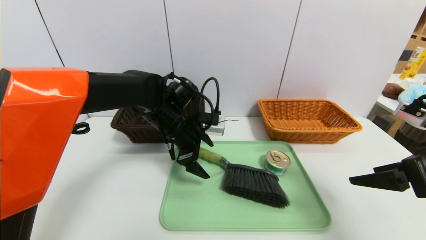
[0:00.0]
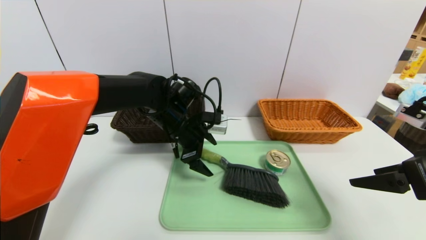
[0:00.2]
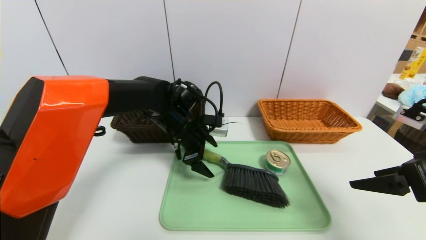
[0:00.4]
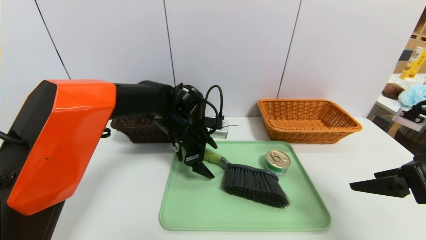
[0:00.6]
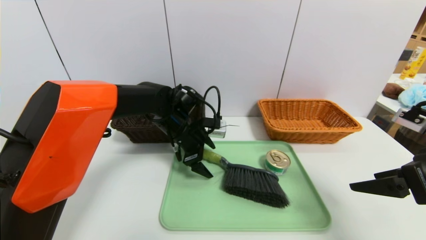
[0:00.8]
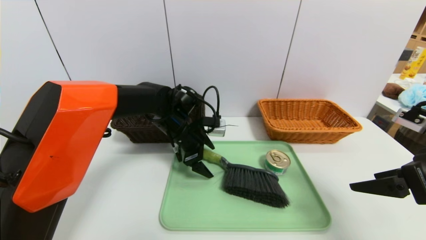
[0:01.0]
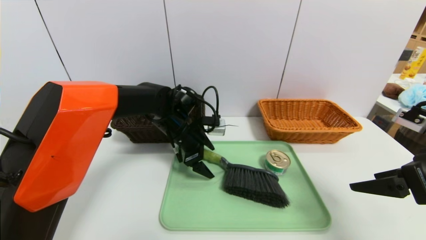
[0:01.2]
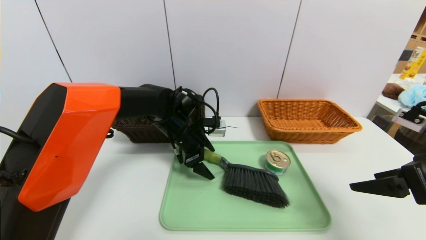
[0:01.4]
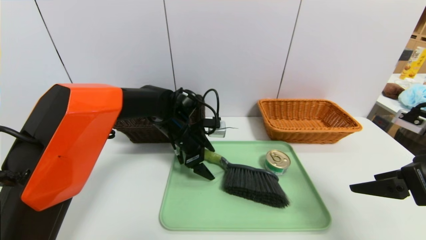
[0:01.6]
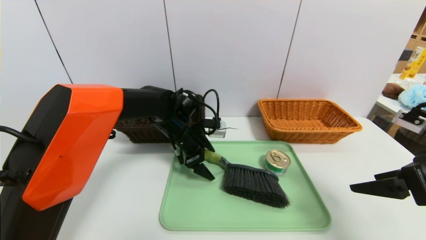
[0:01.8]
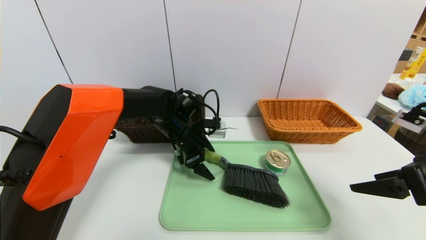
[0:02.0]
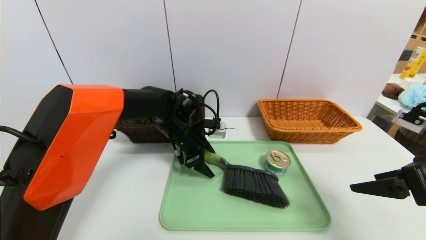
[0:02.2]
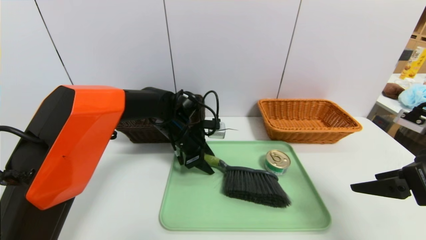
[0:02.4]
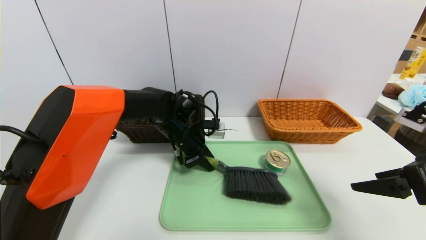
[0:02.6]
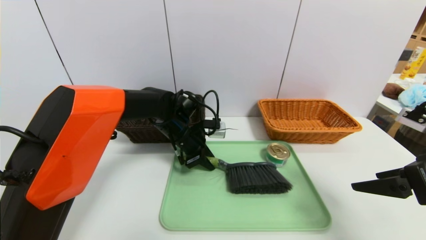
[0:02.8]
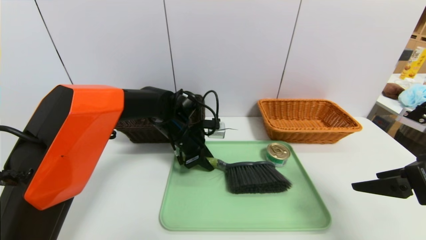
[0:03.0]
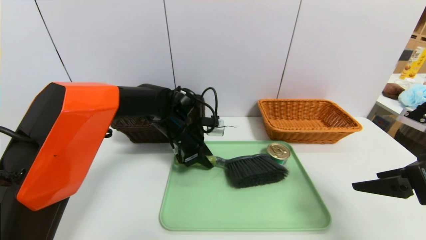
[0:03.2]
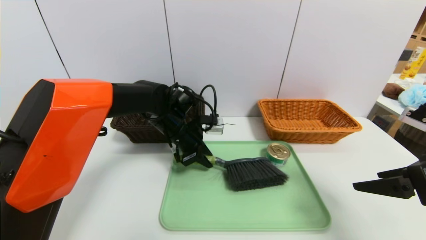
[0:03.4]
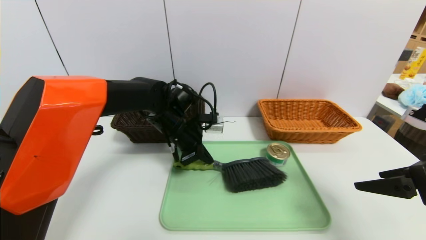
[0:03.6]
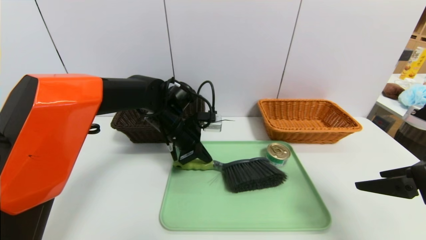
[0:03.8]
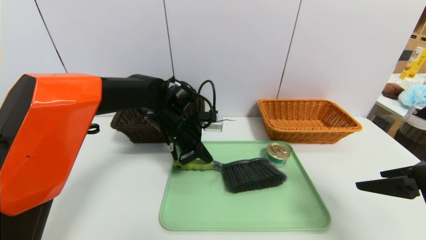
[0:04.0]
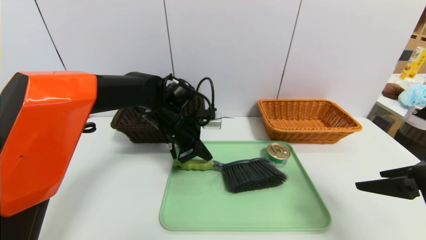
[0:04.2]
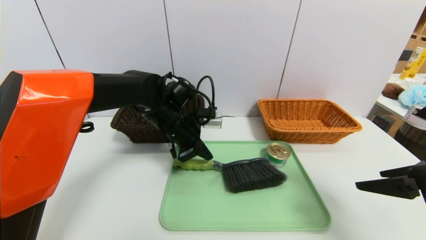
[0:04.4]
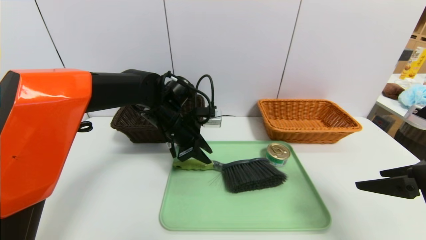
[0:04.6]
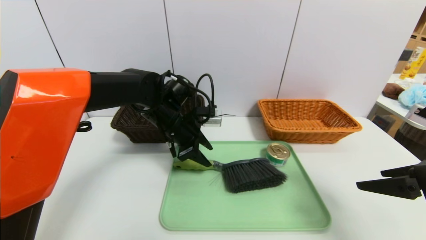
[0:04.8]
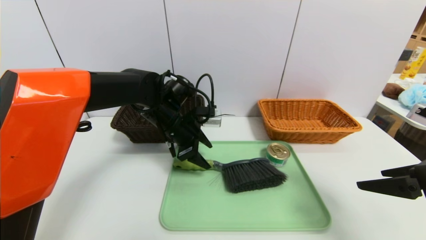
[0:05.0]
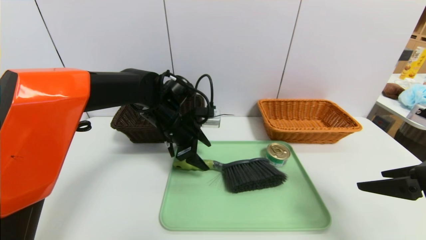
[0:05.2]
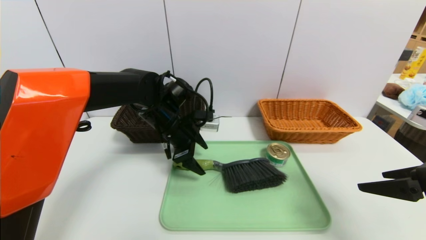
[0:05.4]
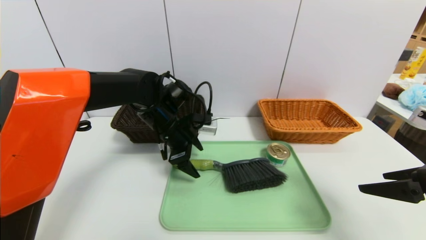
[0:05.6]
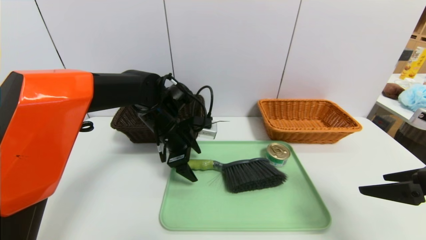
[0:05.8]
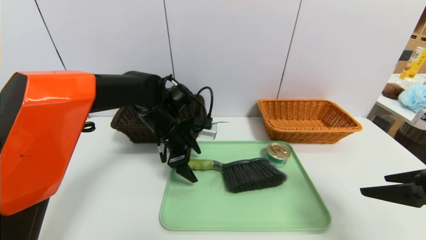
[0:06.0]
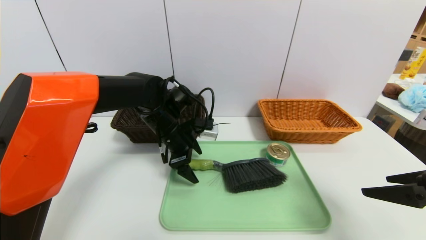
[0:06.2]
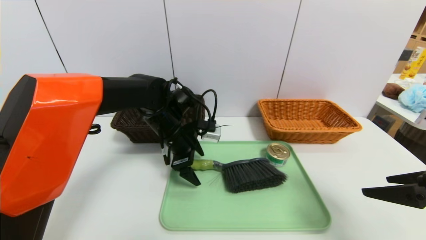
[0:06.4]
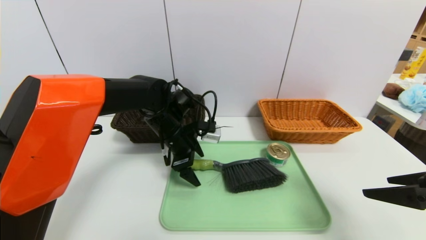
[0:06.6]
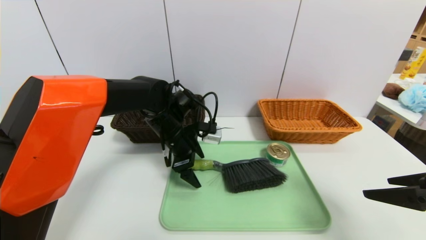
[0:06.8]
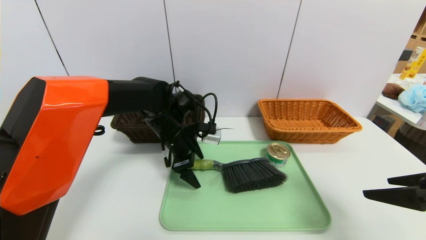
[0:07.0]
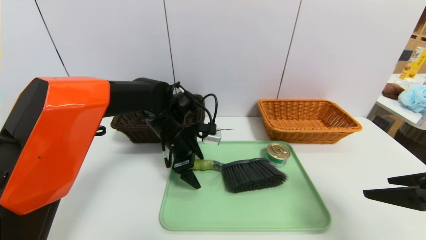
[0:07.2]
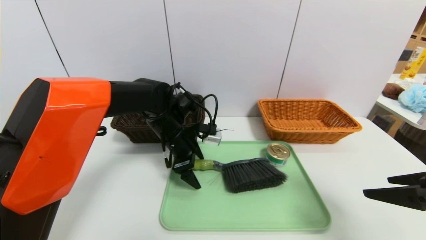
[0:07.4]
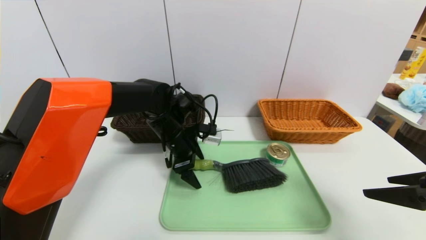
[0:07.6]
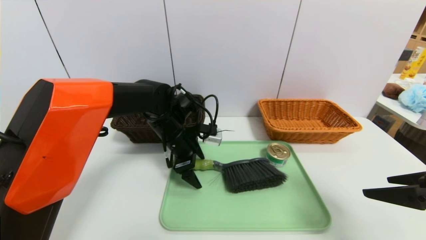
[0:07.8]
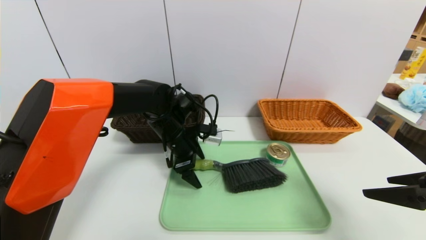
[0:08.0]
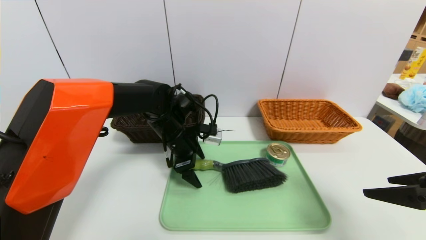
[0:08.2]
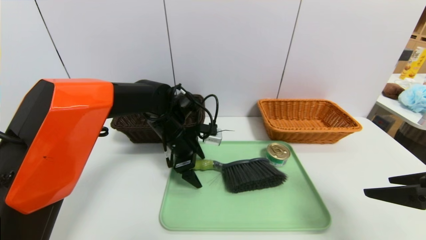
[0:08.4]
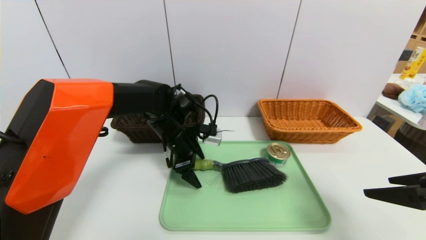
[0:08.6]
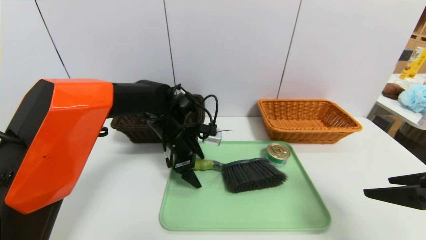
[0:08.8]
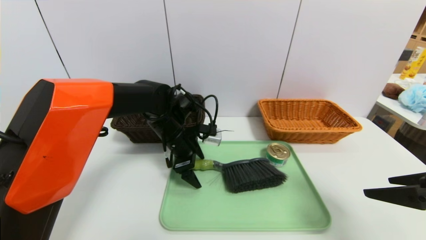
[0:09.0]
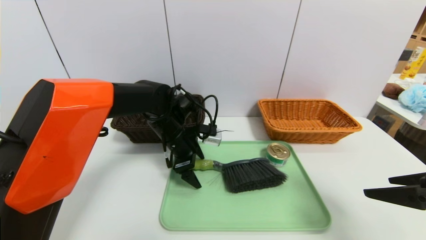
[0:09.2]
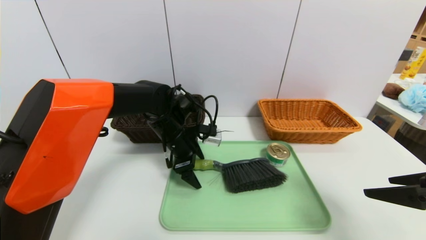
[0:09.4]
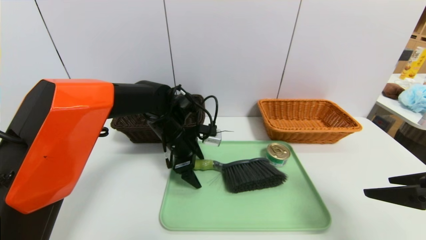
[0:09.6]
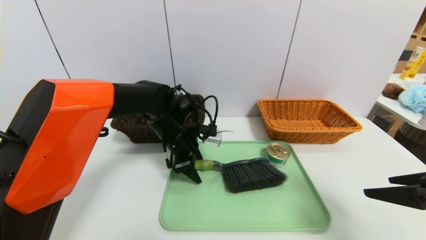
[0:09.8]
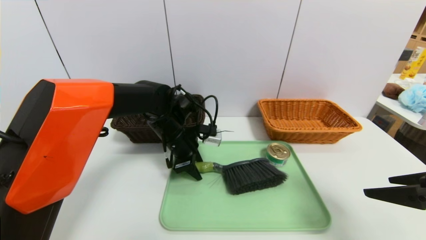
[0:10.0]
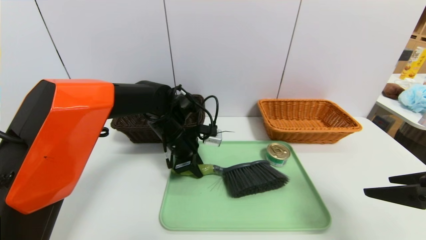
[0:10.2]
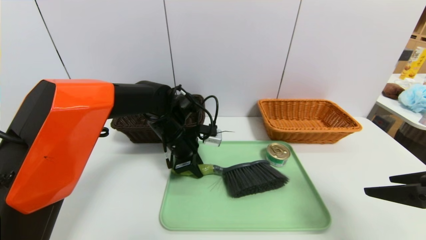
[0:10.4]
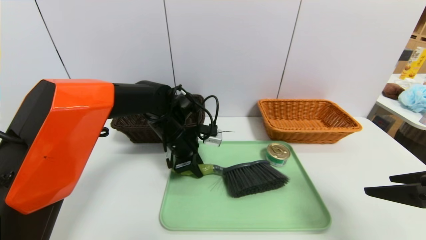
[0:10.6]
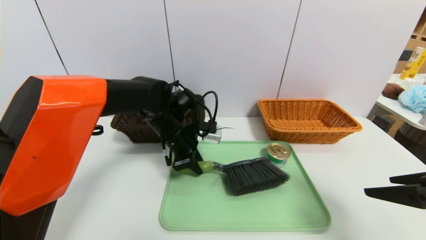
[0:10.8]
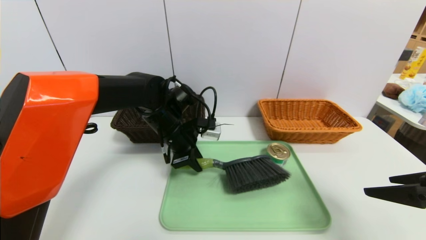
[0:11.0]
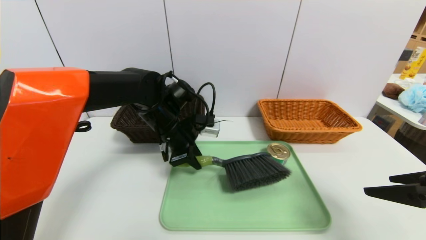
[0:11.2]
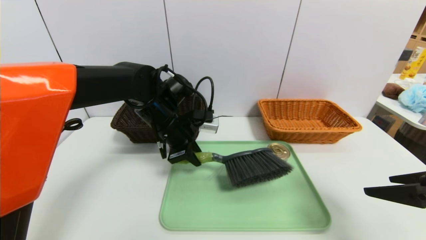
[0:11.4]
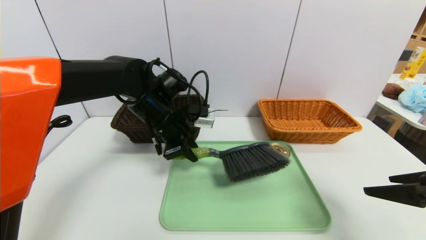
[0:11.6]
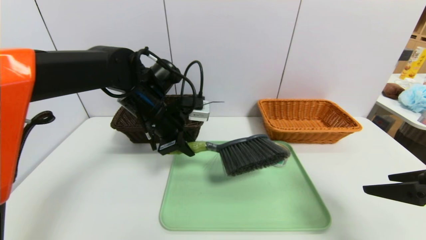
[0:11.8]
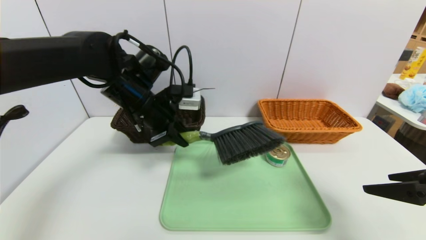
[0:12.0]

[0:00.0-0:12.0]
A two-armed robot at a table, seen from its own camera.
Task of the whole recording: place the food in the right basket with the right gripper, and place the non food items in the left basket with the left gripper.
0:00.0 to 0:01.6: The left gripper changes place by some 5 cm.
0:01.6 to 0:03.0: The left gripper closes up.
0:03.0 to 0:04.4: There are only small adjustments of the grippers.
0:04.4 to 0:06.0: The left gripper opens up.
0:06.0 to 0:07.6: The grippers stay close to where they were, moving slightly.
0:07.6 to 0:09.0: Neither gripper changes place.
0:09.0 to 0:10.4: The left gripper closes up.
0:10.4 to 0:12.0: The left gripper heads upward, covering roughly 10 cm.

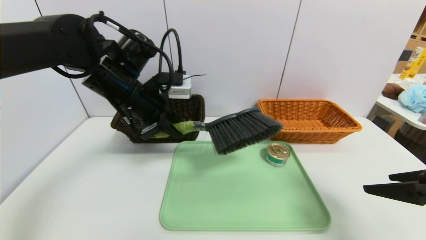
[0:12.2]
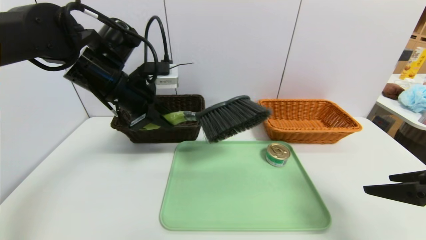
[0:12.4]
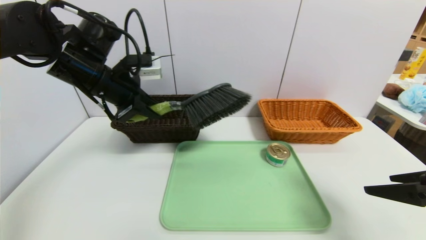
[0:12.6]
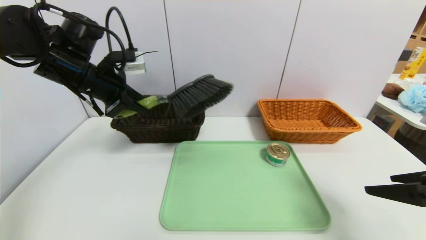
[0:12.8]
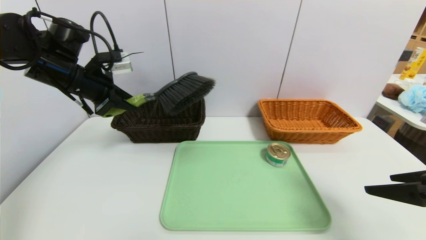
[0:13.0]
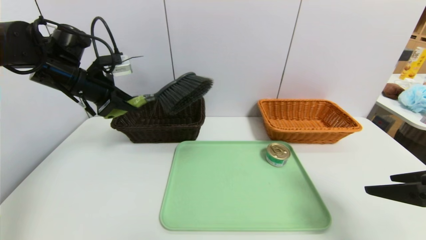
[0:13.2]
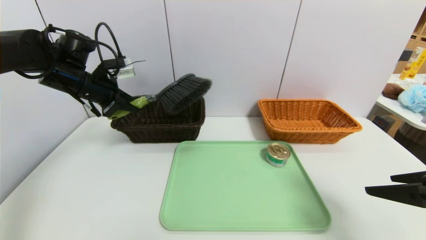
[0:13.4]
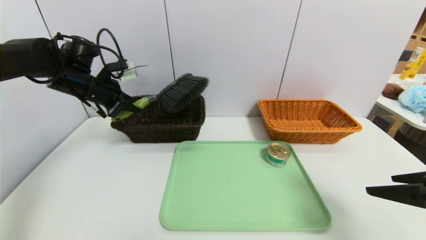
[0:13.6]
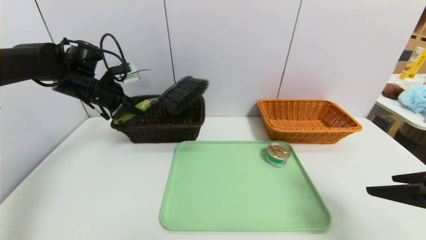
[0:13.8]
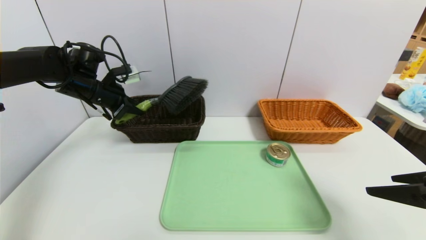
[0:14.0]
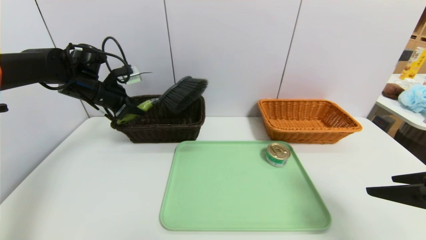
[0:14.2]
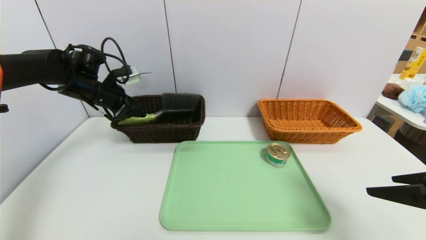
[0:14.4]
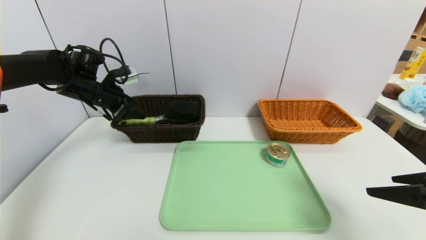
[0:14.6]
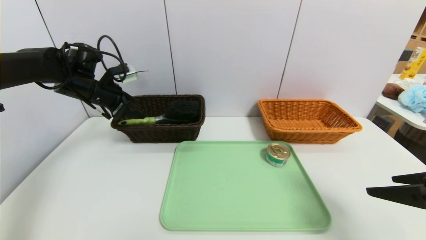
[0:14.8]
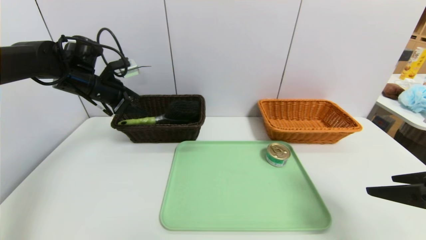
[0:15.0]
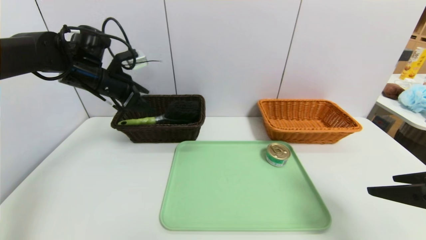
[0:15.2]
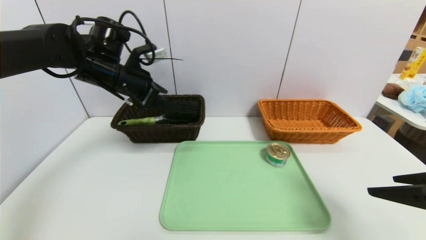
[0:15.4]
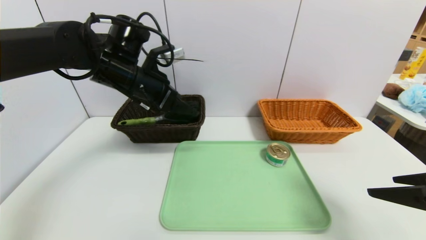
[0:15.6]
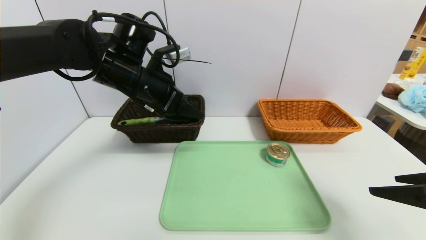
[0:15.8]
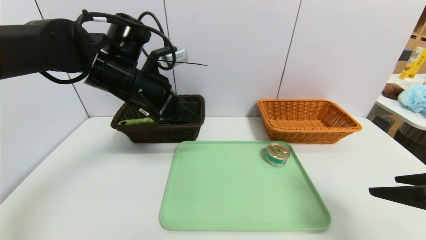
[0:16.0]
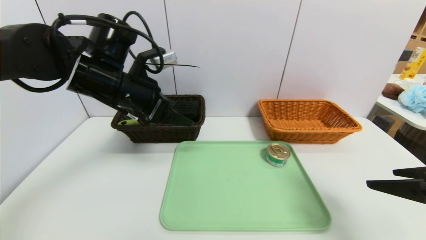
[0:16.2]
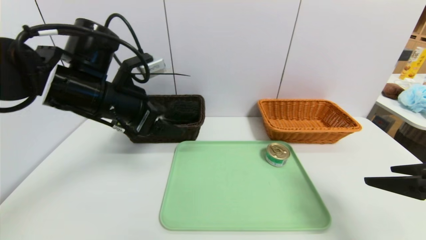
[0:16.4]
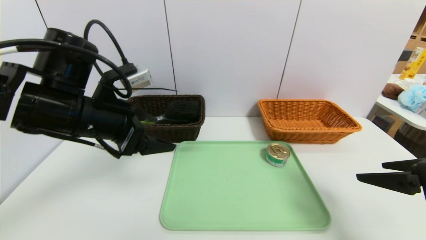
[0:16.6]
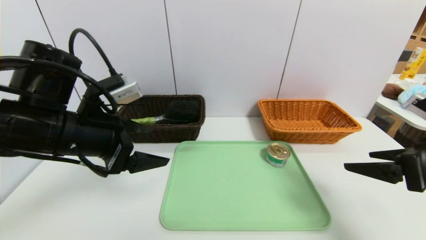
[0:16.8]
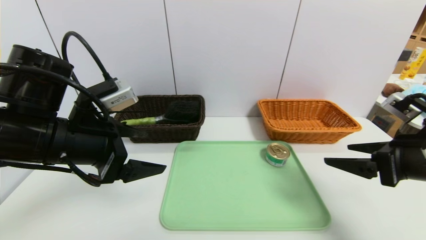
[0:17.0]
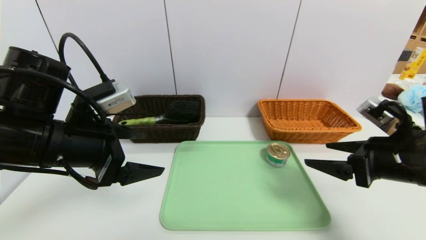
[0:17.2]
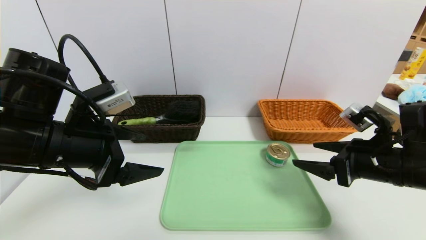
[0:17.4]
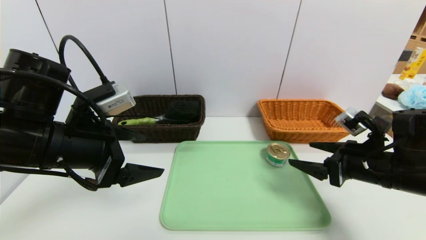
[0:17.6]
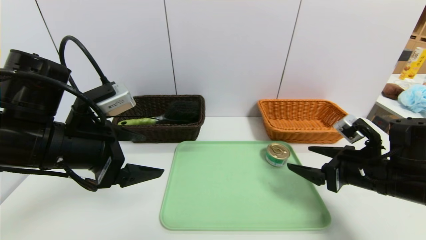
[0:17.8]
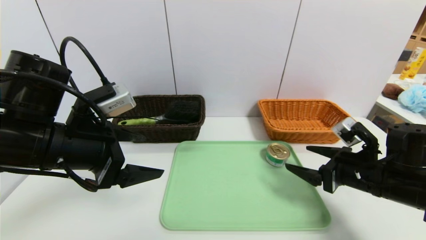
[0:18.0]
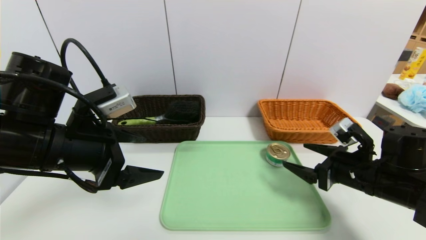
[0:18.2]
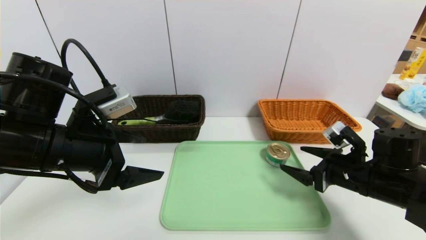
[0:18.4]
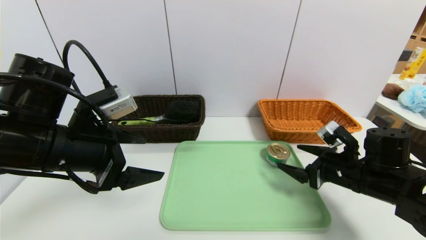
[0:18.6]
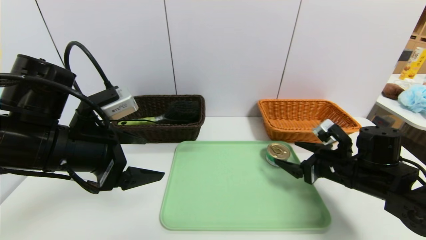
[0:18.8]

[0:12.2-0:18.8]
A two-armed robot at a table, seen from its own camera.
Task of the whole recording: place the food in the right basket with the right gripper, and place the non food items in the left basket with the left gripper.
Step, 0:12.2 to 0:14.4: Grasp the brush and put it in the left basket.
0:12.2 to 0:13.8: The left gripper is displaced to the left and forward by approximately 15 cm.
0:13.8 to 0:15.4: The left gripper travels to the right by some 10 cm, and opens.
0:15.4 to 0:17.2: The left gripper shifts approximately 15 cm backward. Meanwhile the right gripper shifts some 5 cm forward.
0:17.2 to 0:18.8: The right gripper is displaced downward and forward by about 10 cm.
